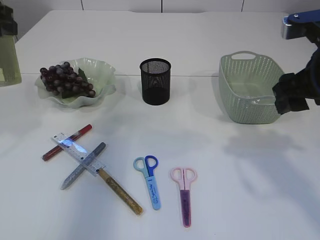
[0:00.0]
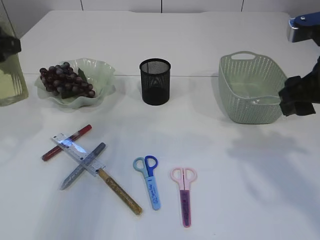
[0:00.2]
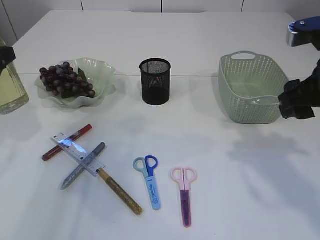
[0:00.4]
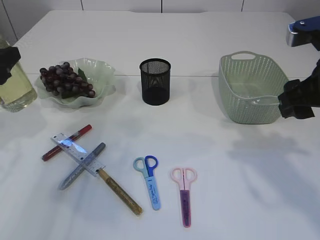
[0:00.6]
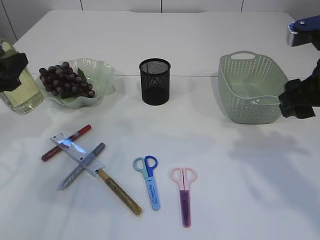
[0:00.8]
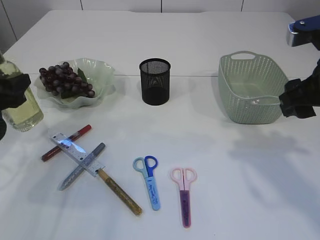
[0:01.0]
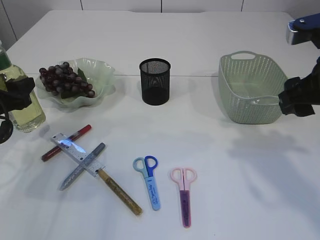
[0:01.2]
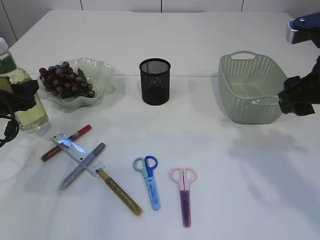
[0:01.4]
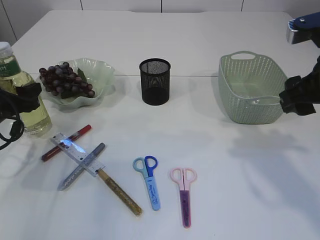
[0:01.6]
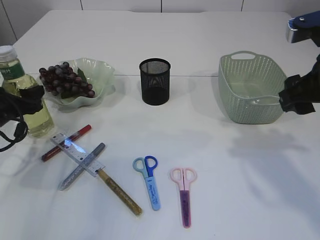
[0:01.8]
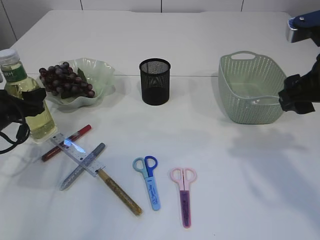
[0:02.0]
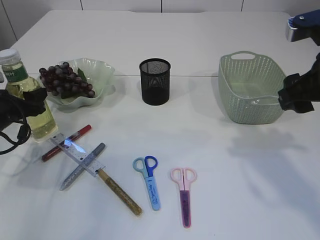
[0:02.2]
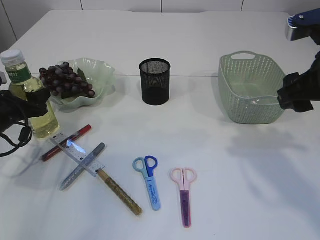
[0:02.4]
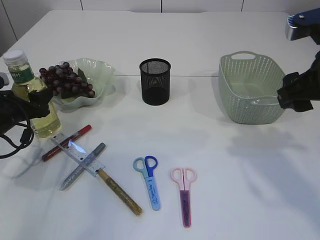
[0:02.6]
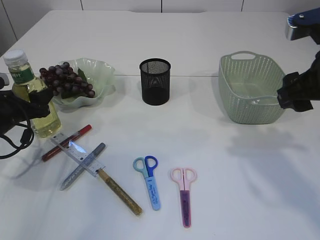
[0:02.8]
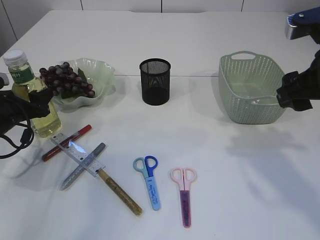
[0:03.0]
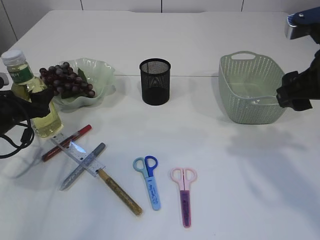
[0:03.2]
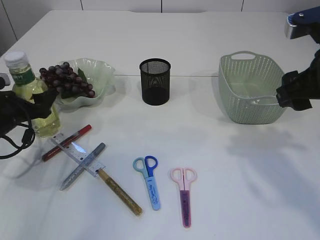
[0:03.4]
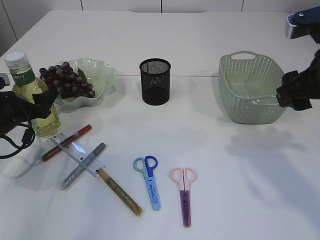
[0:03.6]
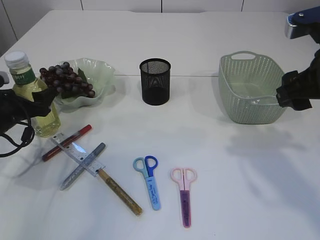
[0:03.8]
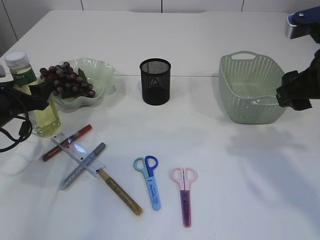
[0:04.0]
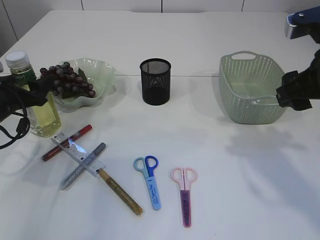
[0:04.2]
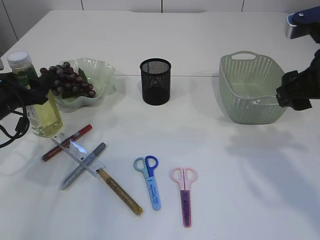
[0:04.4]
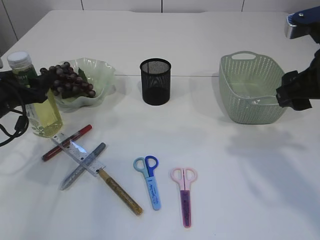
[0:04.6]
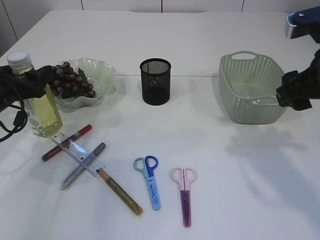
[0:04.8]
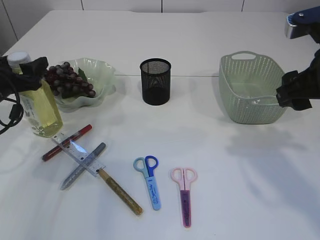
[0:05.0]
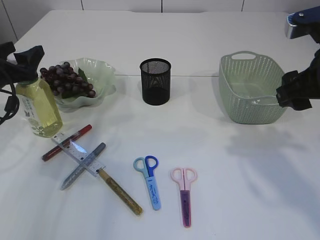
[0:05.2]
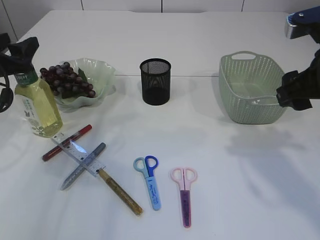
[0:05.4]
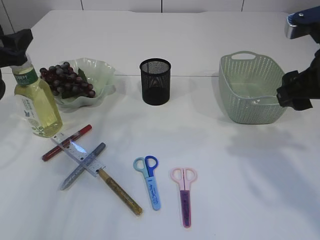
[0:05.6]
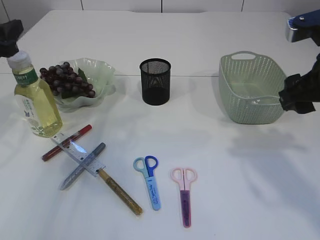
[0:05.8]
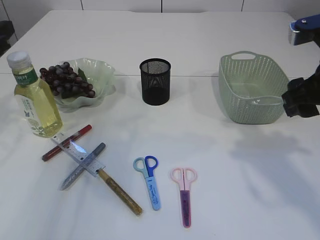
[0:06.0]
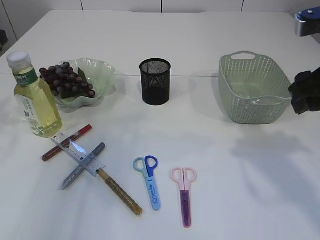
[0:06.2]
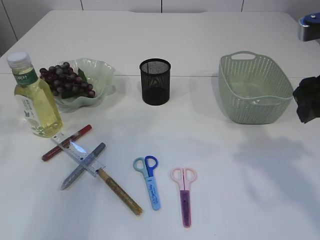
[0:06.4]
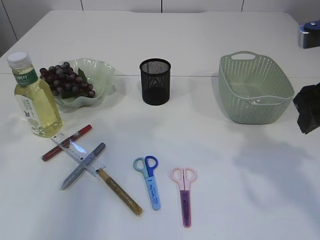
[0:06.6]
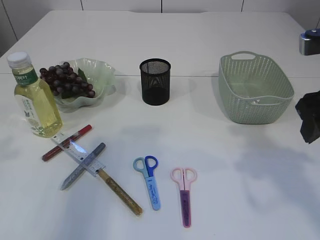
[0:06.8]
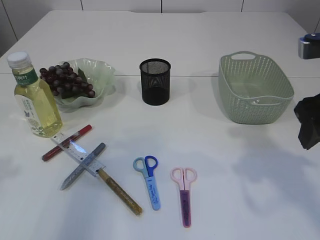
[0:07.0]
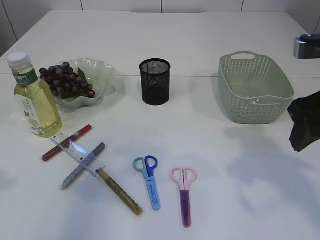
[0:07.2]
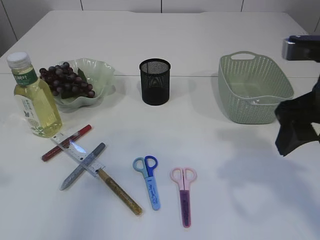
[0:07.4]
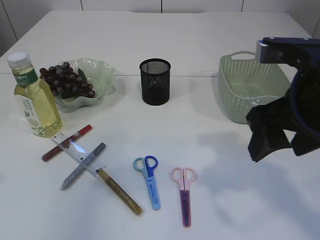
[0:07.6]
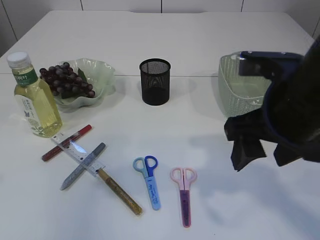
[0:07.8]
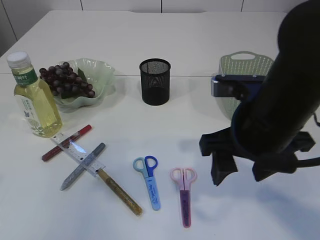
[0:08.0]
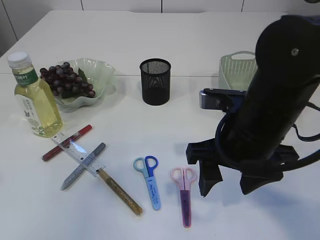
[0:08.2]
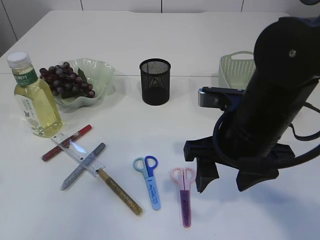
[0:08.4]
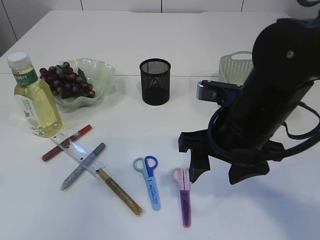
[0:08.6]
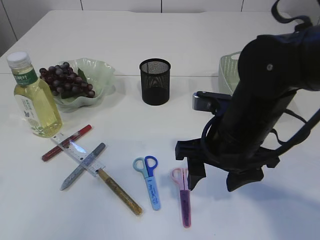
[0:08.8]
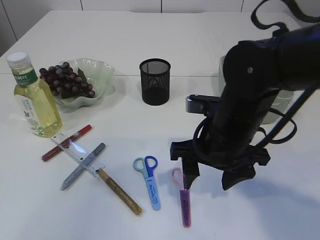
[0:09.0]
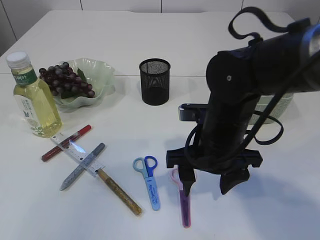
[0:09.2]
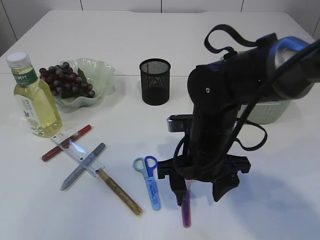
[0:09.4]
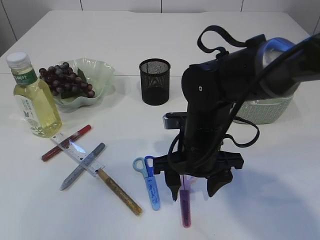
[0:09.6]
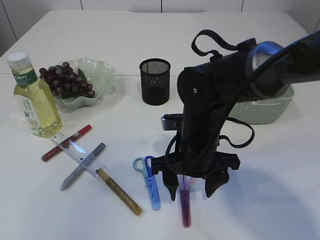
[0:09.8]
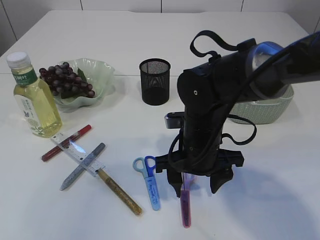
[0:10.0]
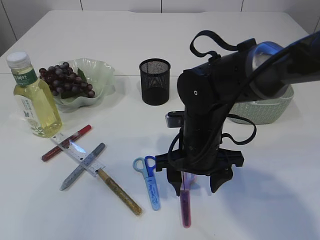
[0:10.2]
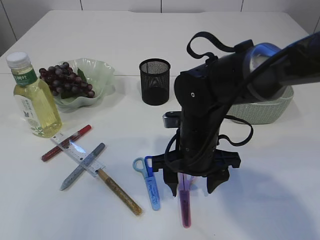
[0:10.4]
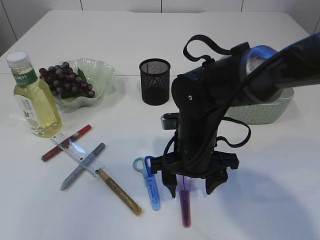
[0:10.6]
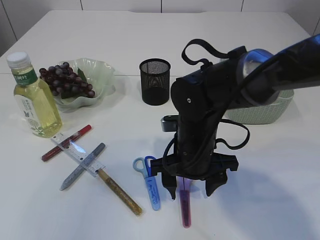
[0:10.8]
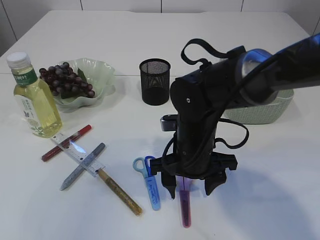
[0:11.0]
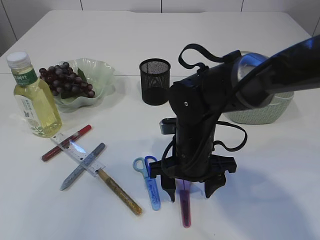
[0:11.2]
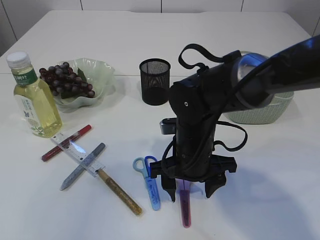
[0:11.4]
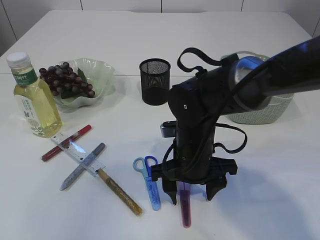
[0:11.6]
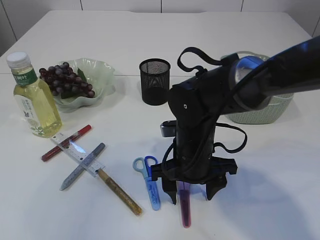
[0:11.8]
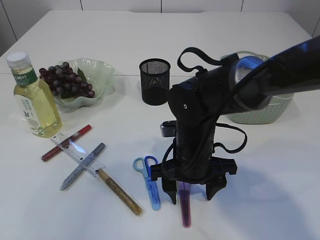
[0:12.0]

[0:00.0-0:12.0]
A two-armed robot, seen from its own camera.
Step, 0:00.0 to 0:05.6: Place the bottle.
0:00.0 to 0:01.6: The left gripper shifts about 20 cm downward.
0:01.6 to 0:04.4: The grippers stay close to where they were, moving slightly.
0:04.4 to 0:06.0: The left gripper goes approximately 10 cm upward.
0:06.0 to 0:07.6: The right gripper shifts roughly 5 cm to the left; the left gripper is displaced backward and upward by roughly 20 cm.
0:07.6 to 0:09.0: The right gripper is displaced downward and to the left by roughly 15 cm.
0:09.0 to 0:10.4: The right gripper ends up approximately 5 cm from where it was.
0:10.4 to 0:12.0: There are only small adjustments of the grippers.

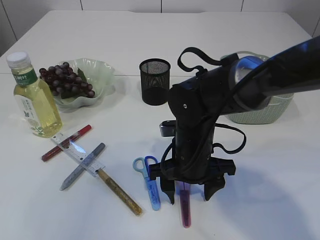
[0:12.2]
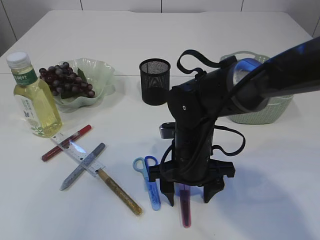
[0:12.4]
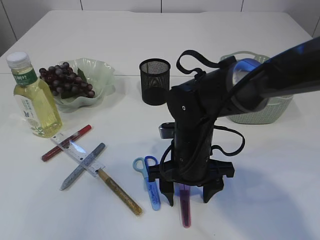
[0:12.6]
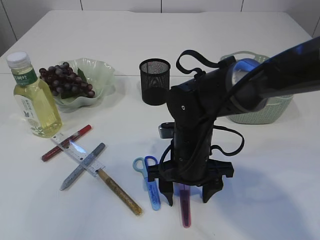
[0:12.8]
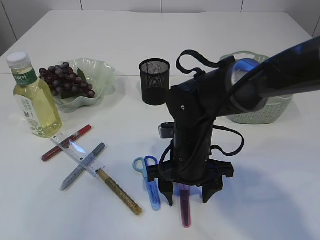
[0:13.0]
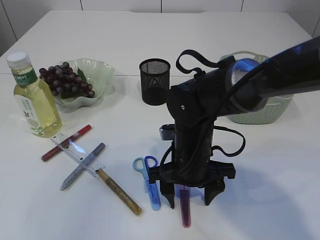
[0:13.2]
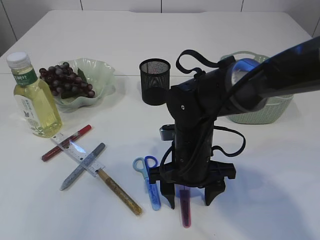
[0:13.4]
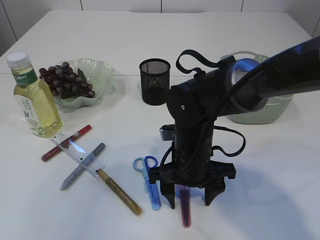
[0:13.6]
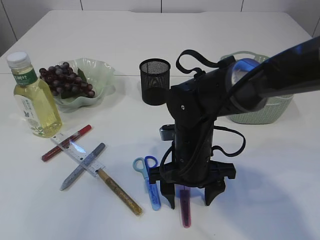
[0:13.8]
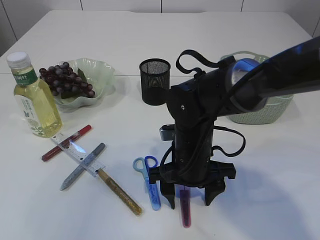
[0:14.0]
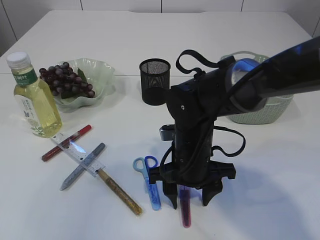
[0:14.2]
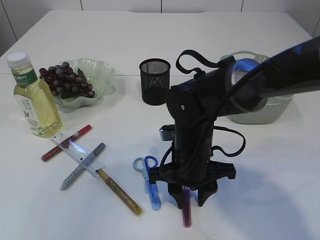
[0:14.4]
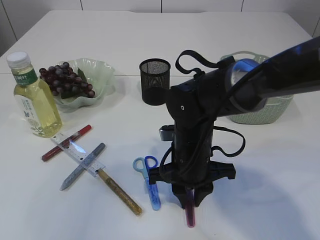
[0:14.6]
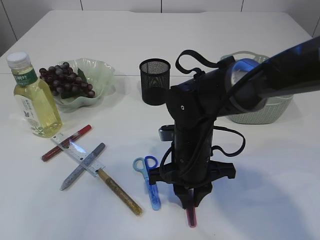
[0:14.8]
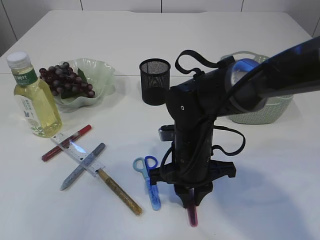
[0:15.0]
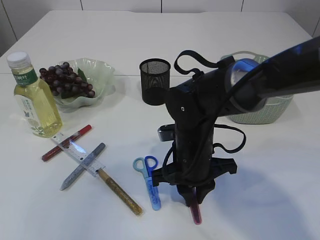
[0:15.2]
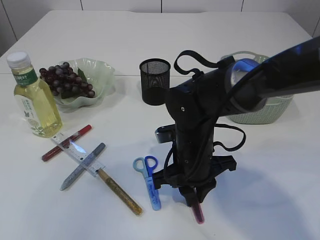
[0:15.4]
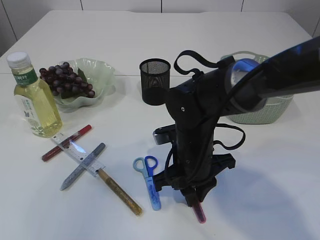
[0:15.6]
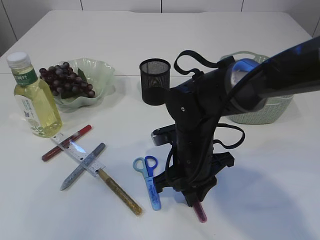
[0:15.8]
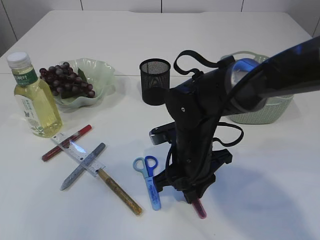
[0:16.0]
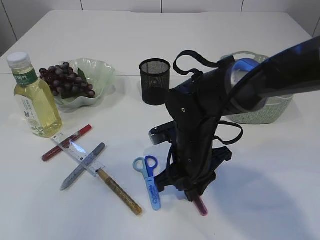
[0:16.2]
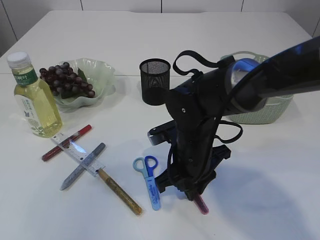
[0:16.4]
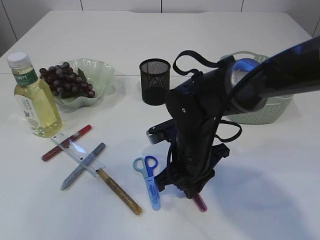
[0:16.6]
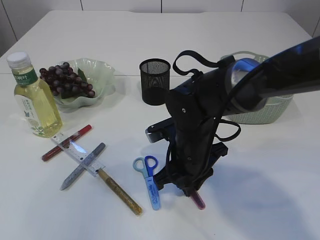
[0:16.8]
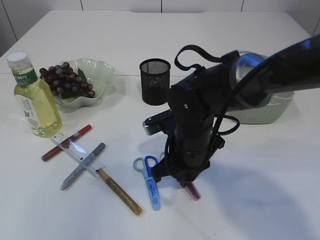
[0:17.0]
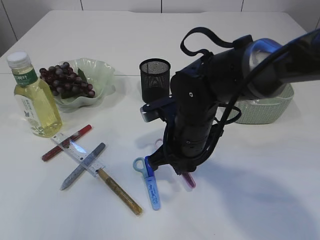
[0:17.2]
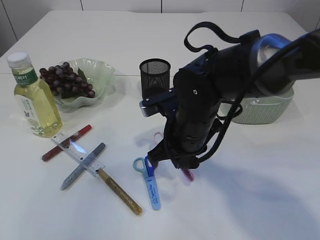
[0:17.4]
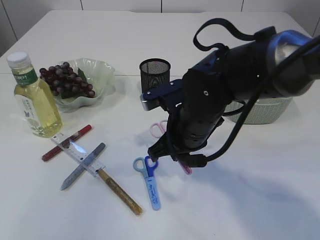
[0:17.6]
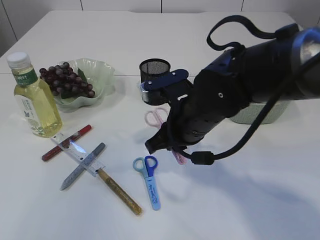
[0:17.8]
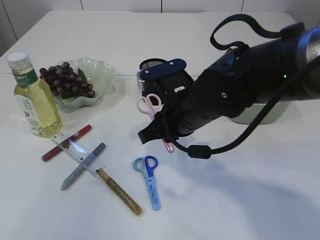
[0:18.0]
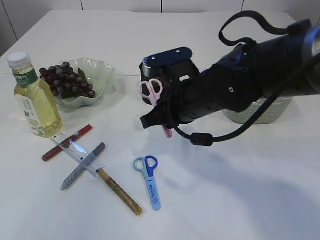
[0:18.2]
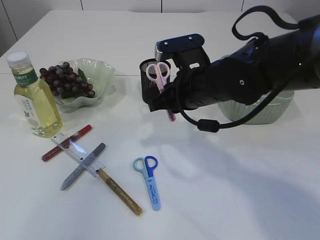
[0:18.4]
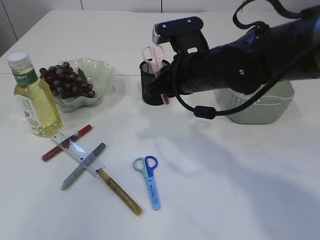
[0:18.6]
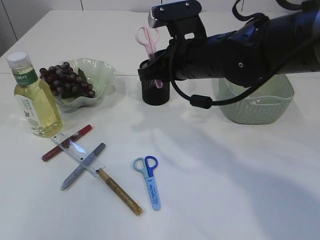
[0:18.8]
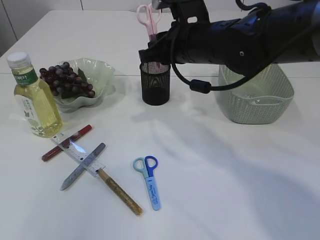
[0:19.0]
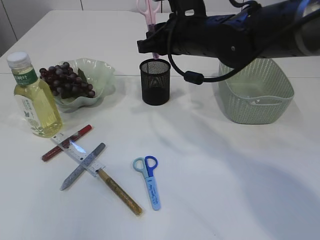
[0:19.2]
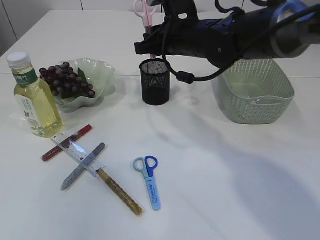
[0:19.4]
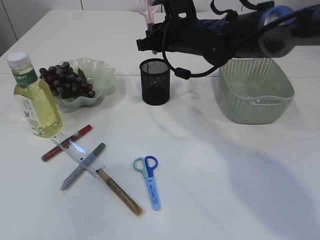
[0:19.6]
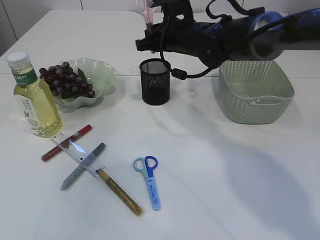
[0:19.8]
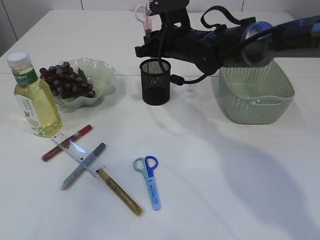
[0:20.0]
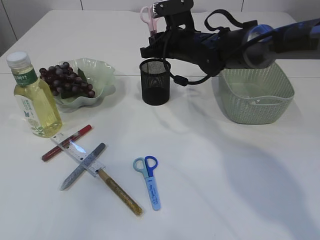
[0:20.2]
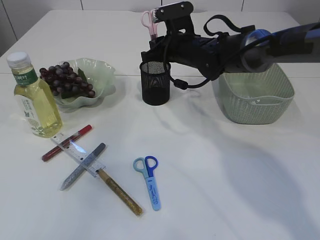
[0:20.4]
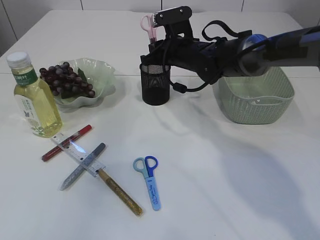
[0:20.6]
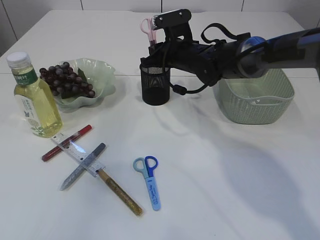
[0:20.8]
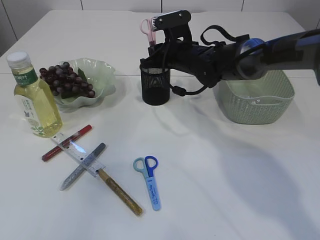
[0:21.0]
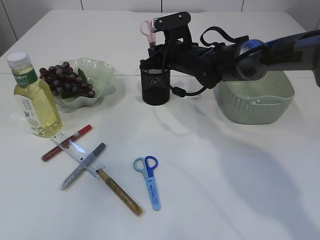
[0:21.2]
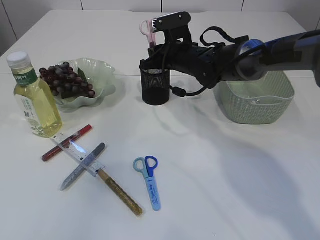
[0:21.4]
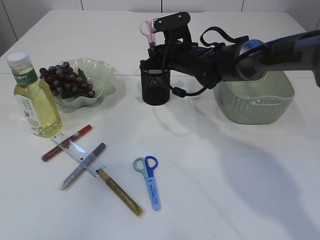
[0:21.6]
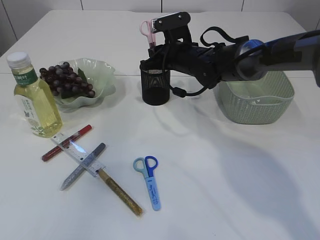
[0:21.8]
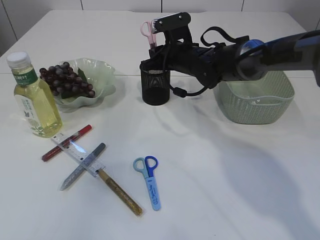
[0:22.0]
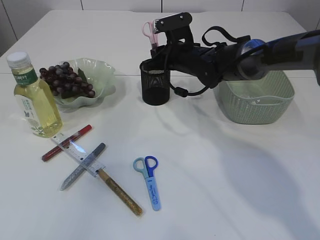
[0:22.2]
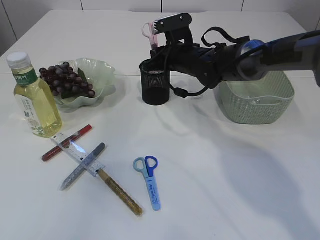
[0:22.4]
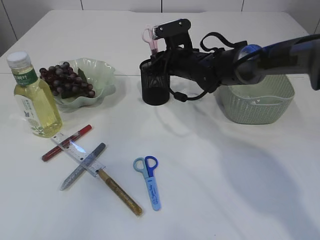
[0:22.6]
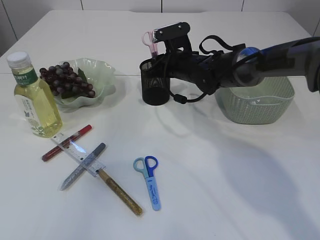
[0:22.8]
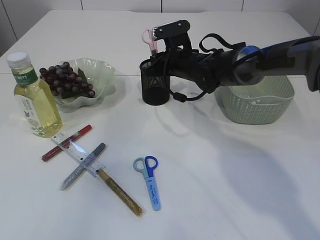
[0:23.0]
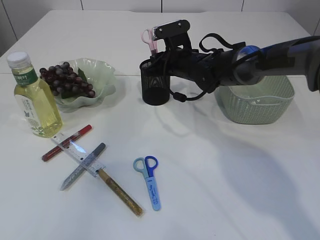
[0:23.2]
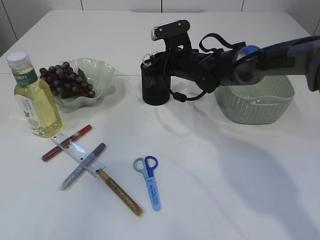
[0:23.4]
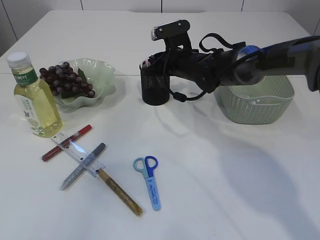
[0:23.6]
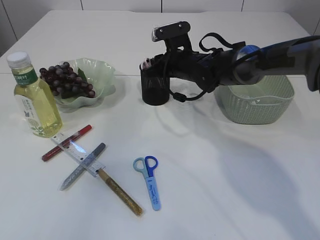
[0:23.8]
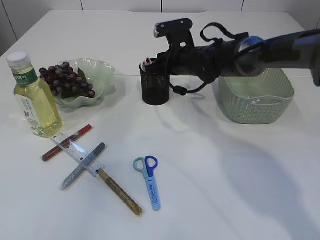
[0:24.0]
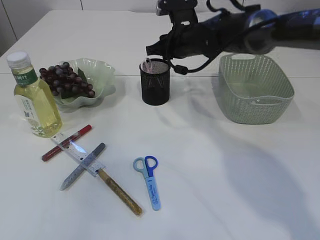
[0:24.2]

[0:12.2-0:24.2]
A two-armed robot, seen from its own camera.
Step, 0:12.2 to 0:17.6: pick up the pink scissors.
0:12.2 to 0:13.8: Neither gripper changes place.
0:13.8 to 0:15.2: The right gripper closes.
0:16.6 to 0:18.2: The right gripper moves upward, approximately 10 cm.
0:18.2 to 0:19.8: The right gripper heads forward, covering some 15 cm.
0:19.8 to 0:21.2: The right gripper moves downward, some 5 cm.
0:21.2 to 0:22.6: Both grippers stay put.
0:22.6 to 0:24.2: The grippers stay close to where they were, moving slightly.
